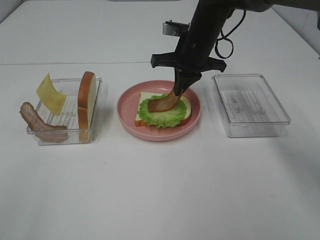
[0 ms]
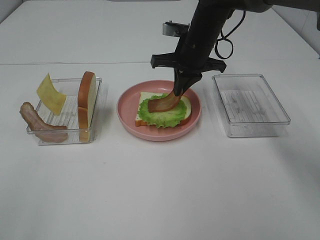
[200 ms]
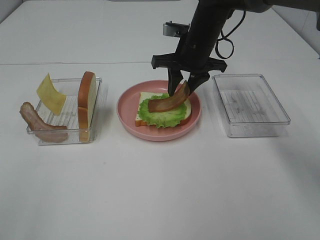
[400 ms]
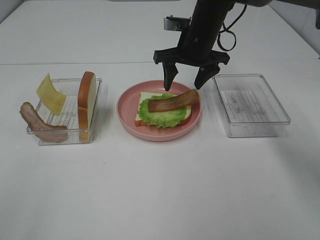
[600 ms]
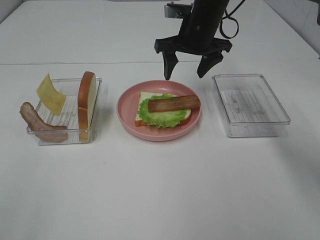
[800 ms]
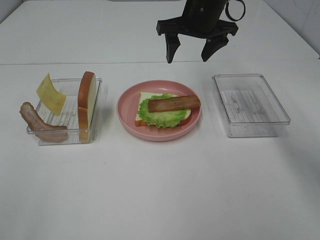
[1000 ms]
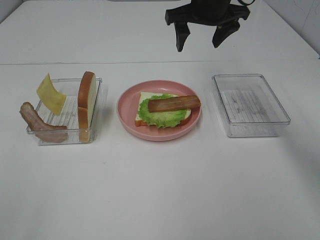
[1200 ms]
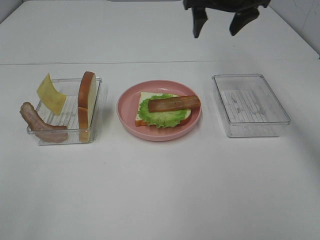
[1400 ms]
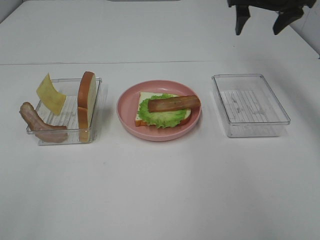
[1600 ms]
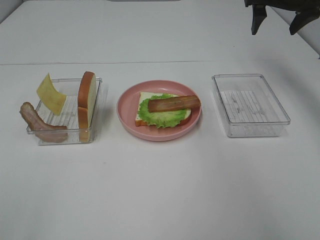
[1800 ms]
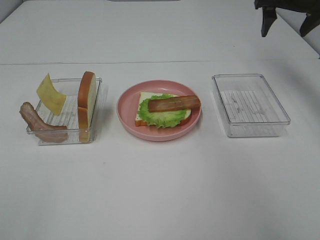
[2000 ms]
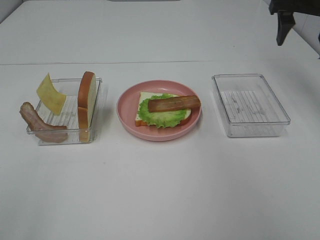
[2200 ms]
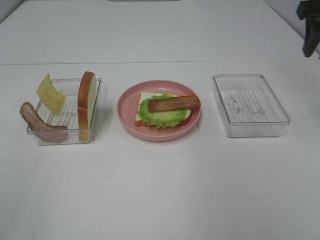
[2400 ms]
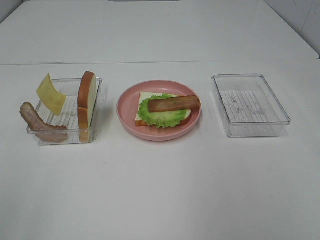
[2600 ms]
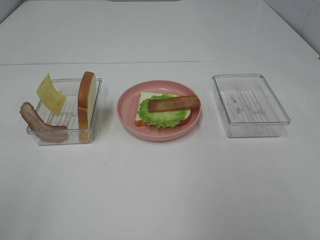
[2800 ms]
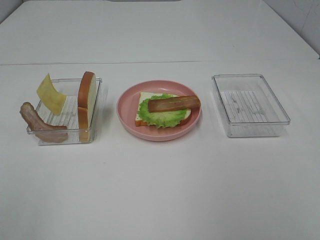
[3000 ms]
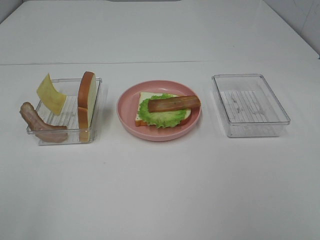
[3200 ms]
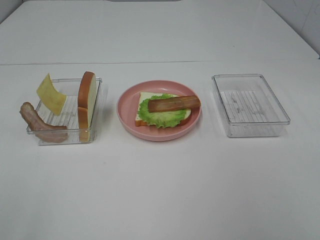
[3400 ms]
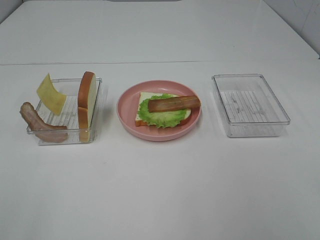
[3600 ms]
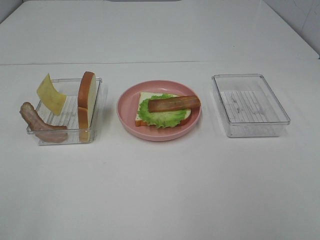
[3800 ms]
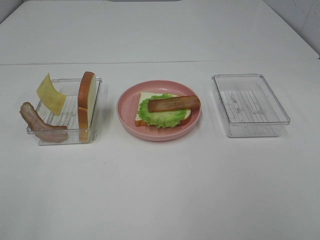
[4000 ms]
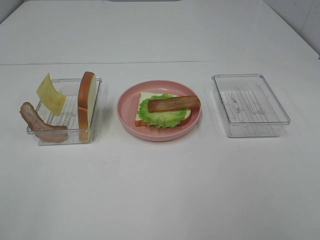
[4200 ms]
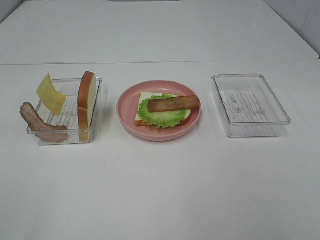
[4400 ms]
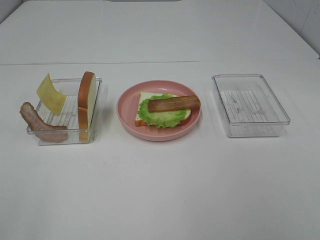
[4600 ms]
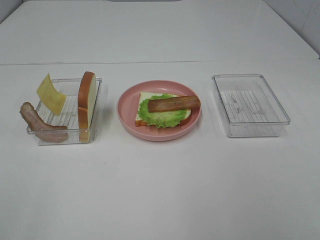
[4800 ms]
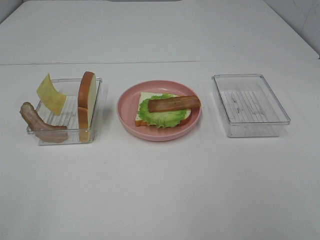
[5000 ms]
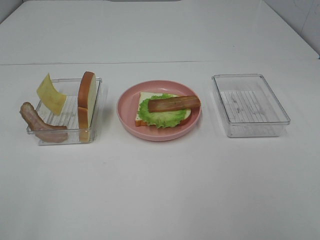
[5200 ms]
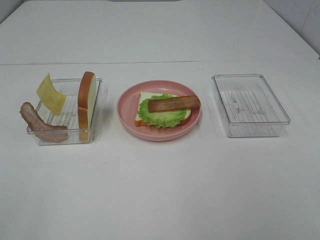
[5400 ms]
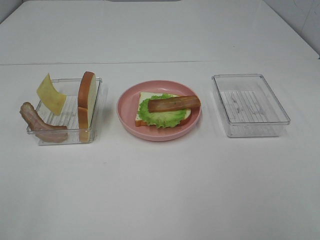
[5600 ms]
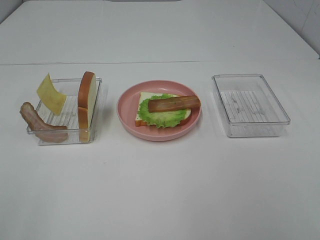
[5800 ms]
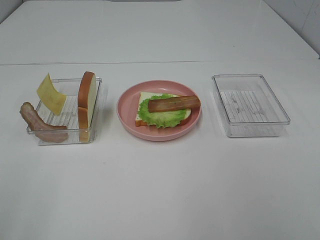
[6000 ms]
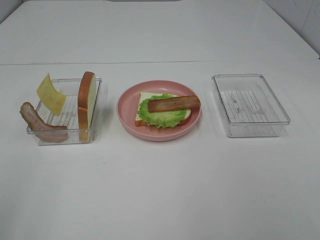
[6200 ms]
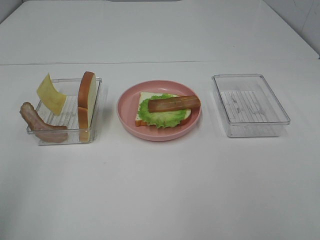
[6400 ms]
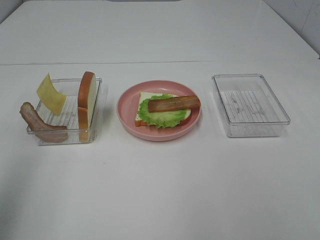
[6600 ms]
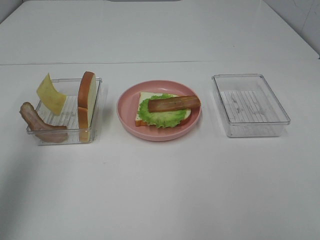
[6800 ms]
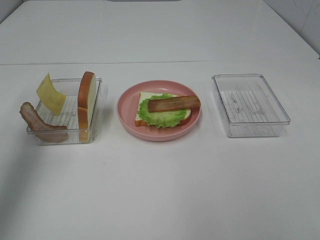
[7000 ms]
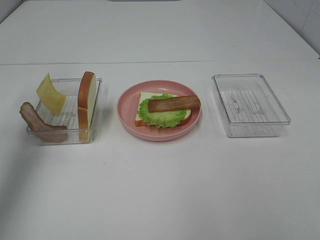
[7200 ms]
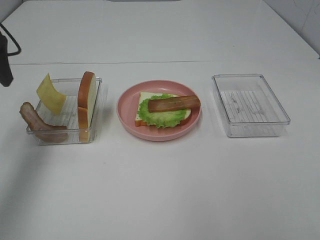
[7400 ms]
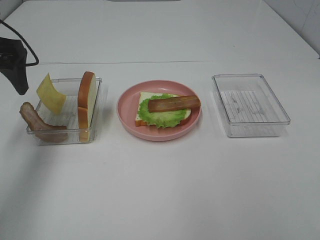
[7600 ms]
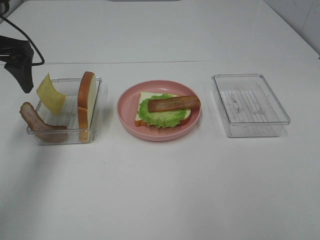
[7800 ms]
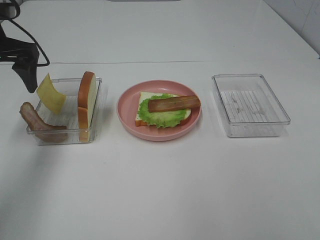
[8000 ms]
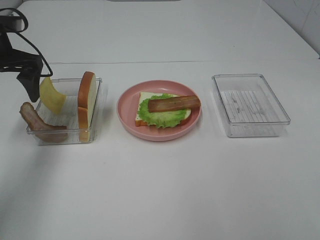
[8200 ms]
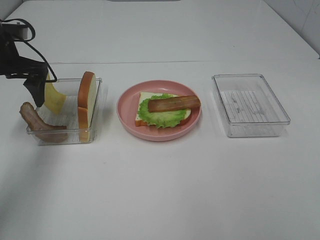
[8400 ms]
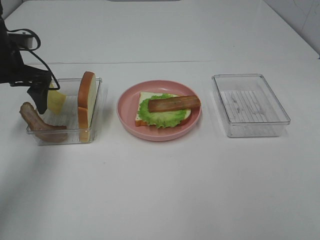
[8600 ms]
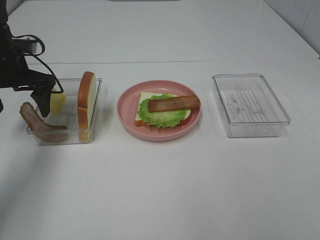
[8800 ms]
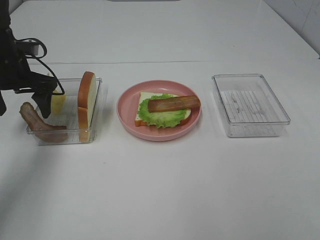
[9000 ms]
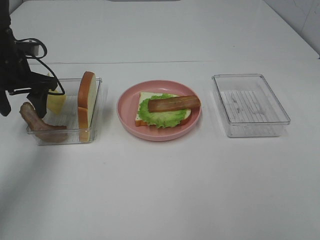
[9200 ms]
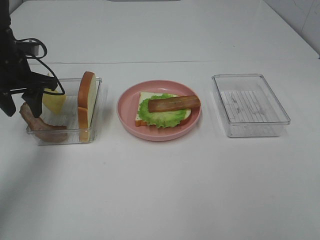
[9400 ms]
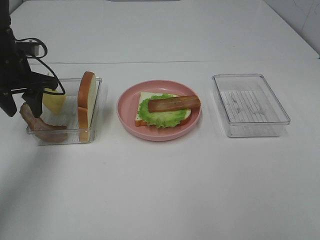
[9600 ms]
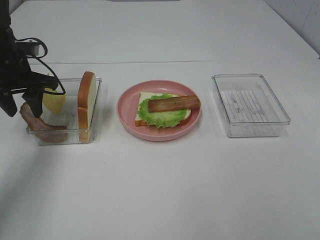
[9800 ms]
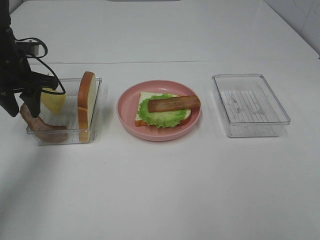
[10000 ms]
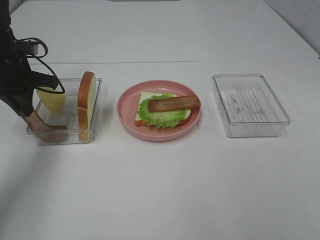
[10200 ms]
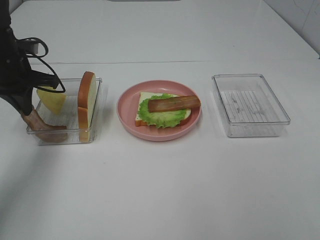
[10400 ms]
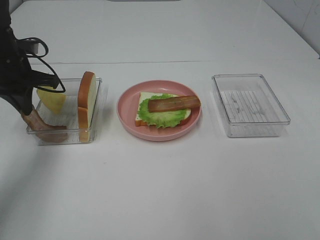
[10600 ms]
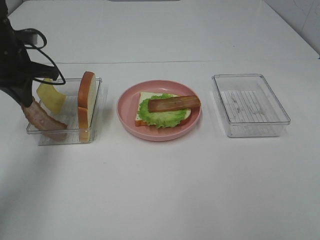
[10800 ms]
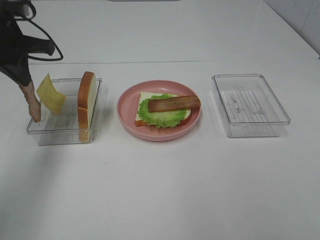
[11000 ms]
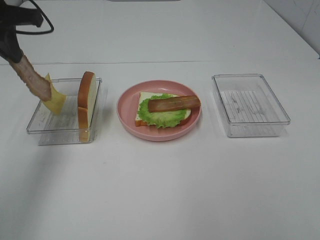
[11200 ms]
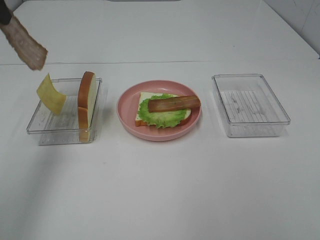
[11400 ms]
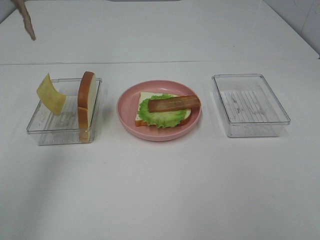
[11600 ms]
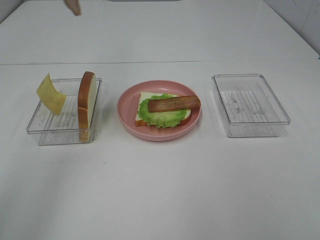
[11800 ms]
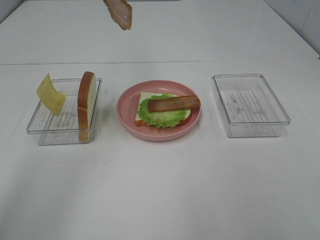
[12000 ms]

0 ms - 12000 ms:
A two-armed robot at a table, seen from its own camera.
Task of the whole recording: Make sandwiches.
Step, 800 ms - 10200 ms: Left hand:grab the bacon.
0 ms - 1600 ms: The right gripper heads to the right and upward, covering approximately 20 cm, and opens up.
1600 ms - 3000 ms: The right gripper moves backward, roughly 35 cm.
6000 ms - 7600 ms: The left gripper goes some 35 cm forward.
7600 ms - 9000 ms: The left gripper travels downward and forward by some 10 cm.
9000 ms - 10400 ms: The left gripper closes its fingers.
10400 ms - 12000 ms: The left gripper shifts approximately 25 cm upward and to the right.

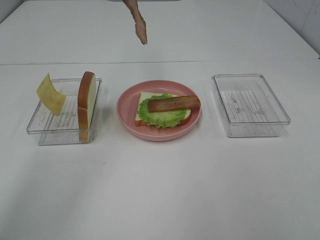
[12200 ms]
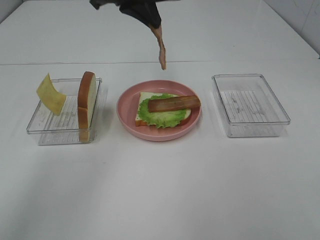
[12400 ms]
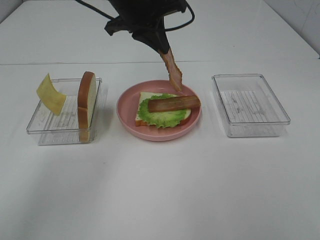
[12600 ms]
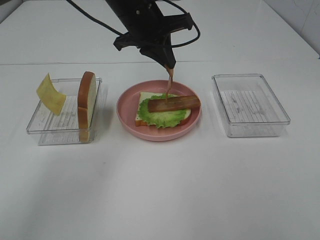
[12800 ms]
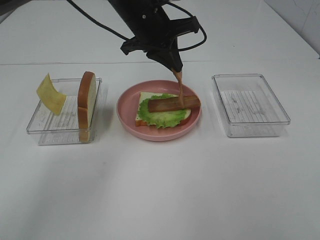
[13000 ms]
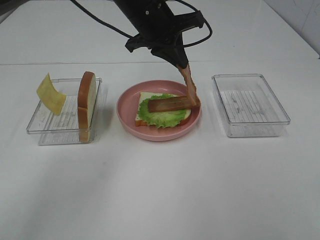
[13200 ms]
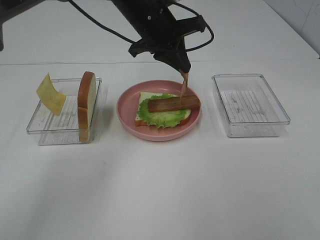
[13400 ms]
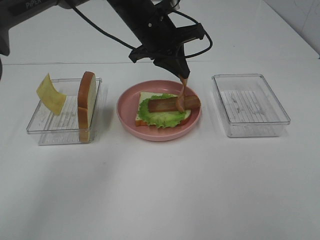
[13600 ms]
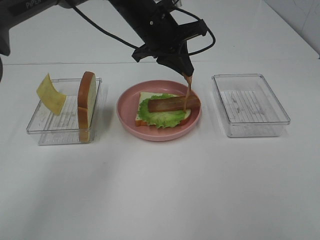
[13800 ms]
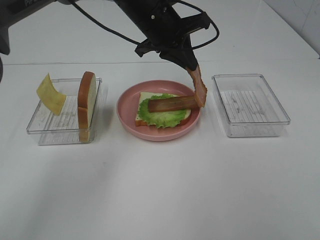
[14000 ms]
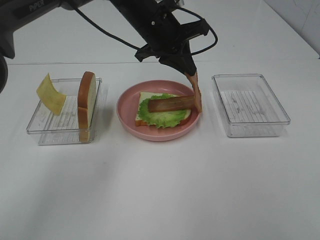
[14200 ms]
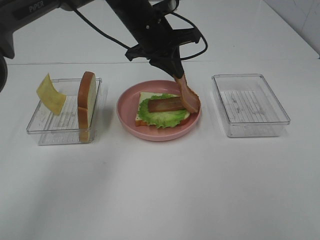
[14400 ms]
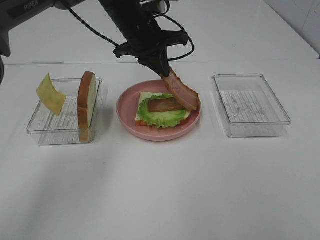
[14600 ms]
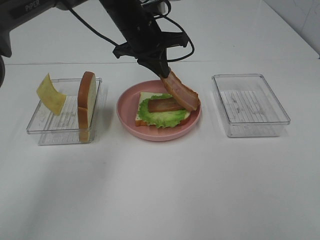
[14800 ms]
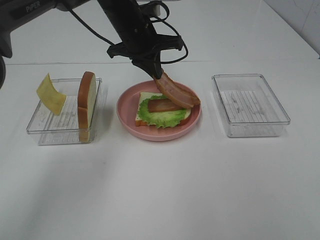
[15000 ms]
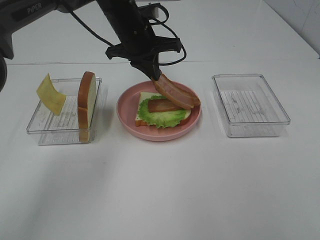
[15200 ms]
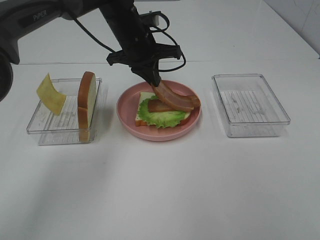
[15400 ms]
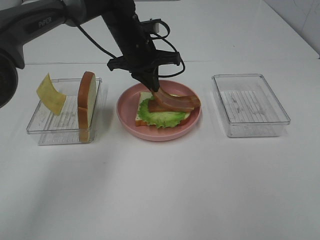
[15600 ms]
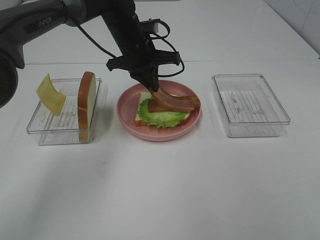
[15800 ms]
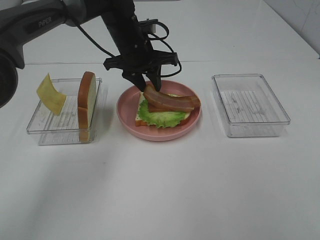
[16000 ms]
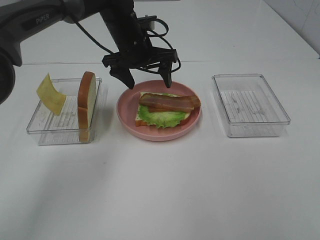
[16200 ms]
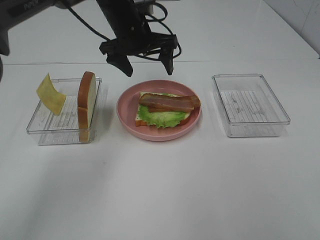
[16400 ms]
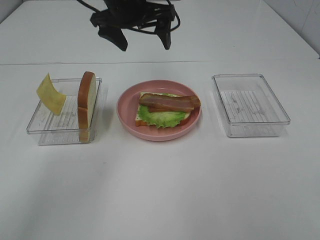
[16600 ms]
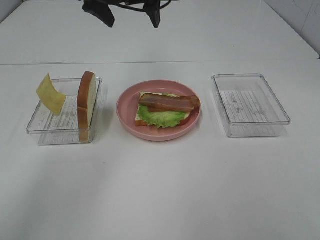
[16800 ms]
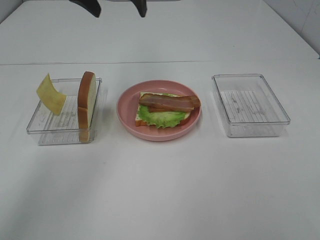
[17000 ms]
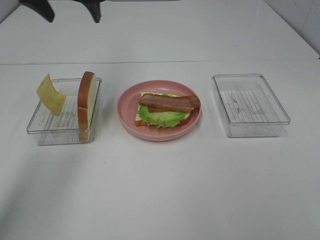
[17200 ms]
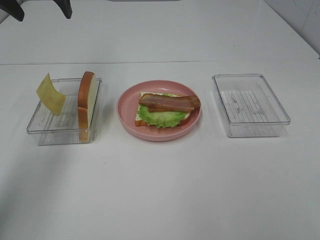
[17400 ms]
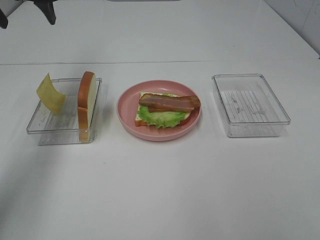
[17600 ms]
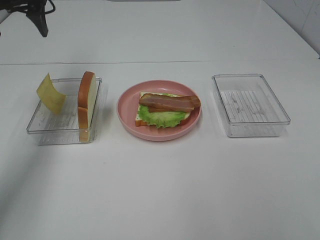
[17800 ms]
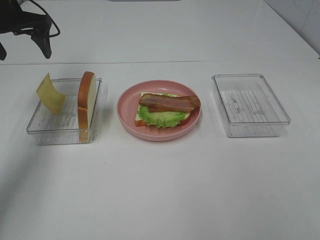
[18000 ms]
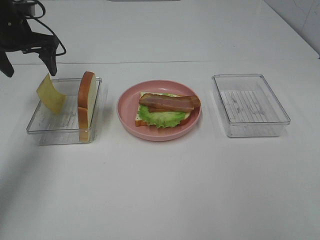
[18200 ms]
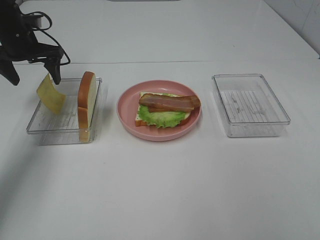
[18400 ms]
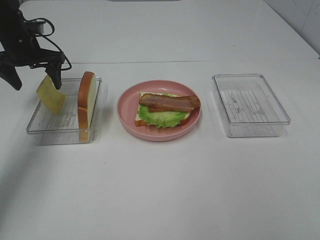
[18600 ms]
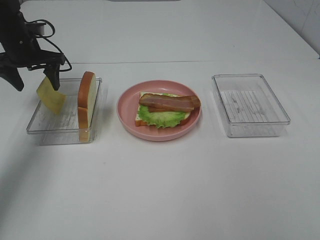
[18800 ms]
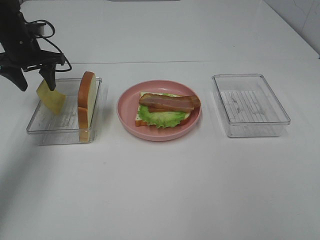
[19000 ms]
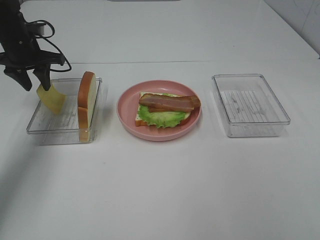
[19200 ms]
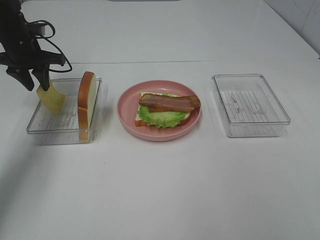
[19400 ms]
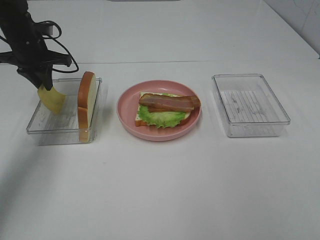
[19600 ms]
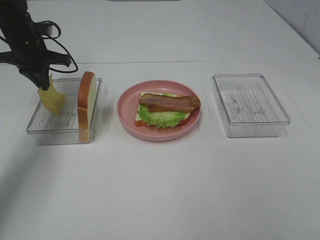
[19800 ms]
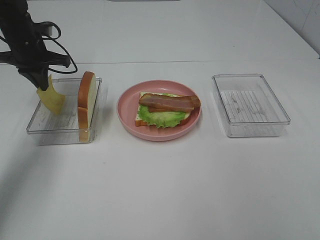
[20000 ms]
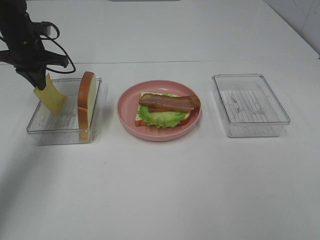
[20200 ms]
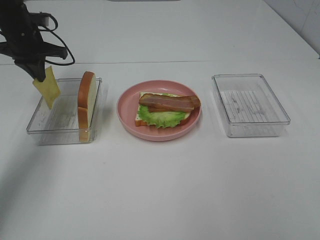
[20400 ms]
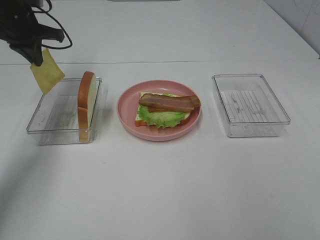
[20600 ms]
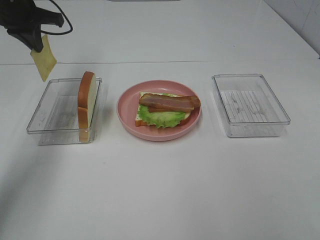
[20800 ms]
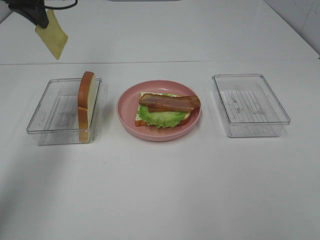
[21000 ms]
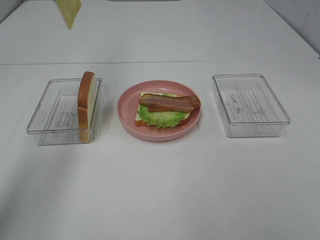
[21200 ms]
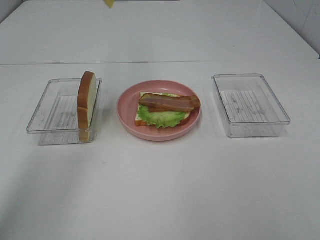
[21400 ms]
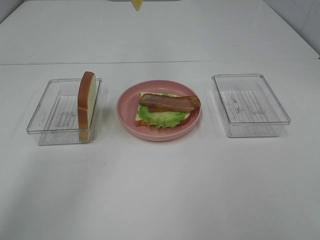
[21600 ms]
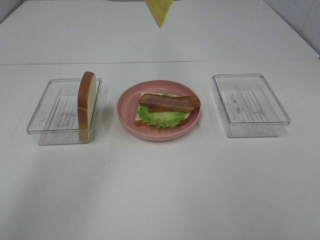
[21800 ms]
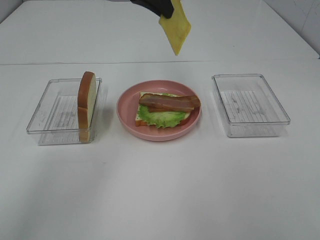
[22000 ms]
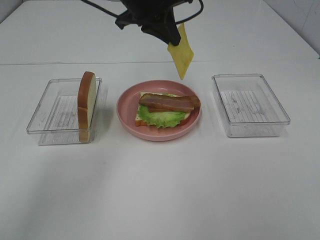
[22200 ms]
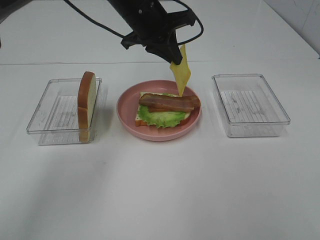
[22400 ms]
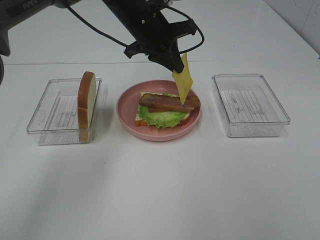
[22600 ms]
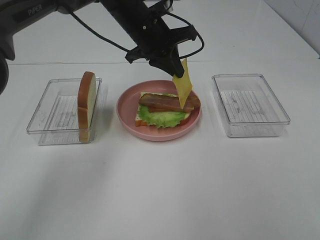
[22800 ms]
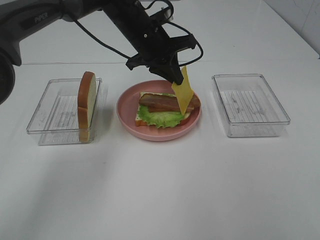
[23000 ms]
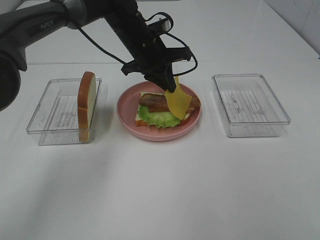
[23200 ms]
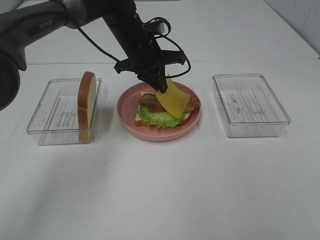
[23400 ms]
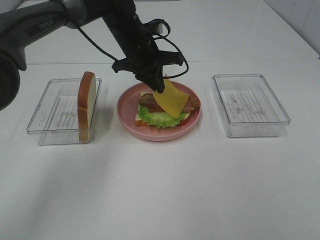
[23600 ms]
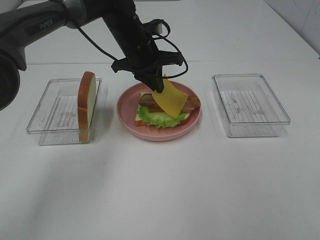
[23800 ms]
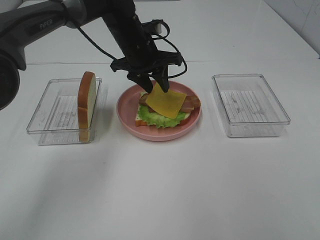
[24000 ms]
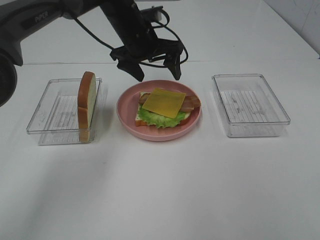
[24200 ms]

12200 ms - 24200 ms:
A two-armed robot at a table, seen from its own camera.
Task of the whole recording: Make sandwiches.
Step, 12200 ms - 16200 ms: Left hand:place bacon on bacon.
Step, 16400 ms - 19800 ms: Left hand:grab the cheese slice.
Step, 20000 ms - 24000 ms: Left hand:place the cheese slice on top of the bacon.
12200 ms - 13800 ms: The left gripper heads downward and to the right, covering roughly 15 cm.
13800 ms - 15200 ms: The grippers make only small movements.
15200 ms - 16600 ms: The left gripper moves upward, roughly 5 cm, and opens its fingers.
16600 ms - 18200 ms: The left gripper is displaced to the left by roughly 20 cm.
18200 ms - 19800 ms: The left gripper closes.
19800 ms - 21200 ms: The left gripper travels upward by approximately 20 cm.
21200 ms - 22600 ms: The left gripper heads to the right and downward, covering some 20 cm.
22600 ms - 24200 ms: The left gripper opens its fingers.
